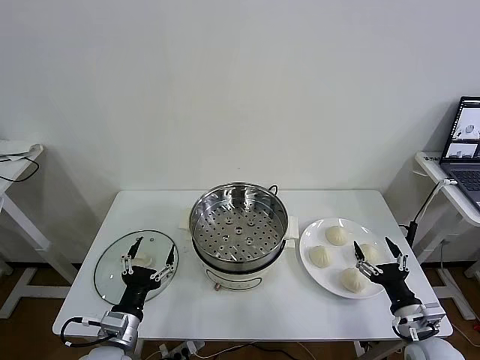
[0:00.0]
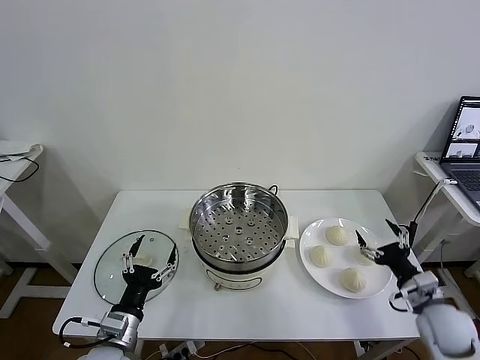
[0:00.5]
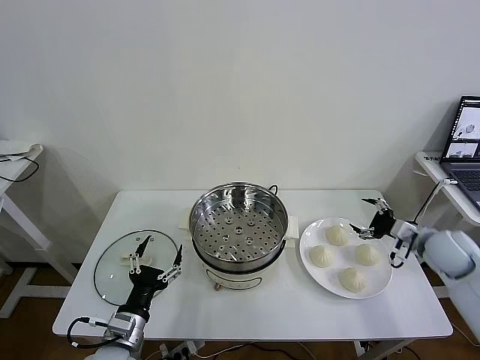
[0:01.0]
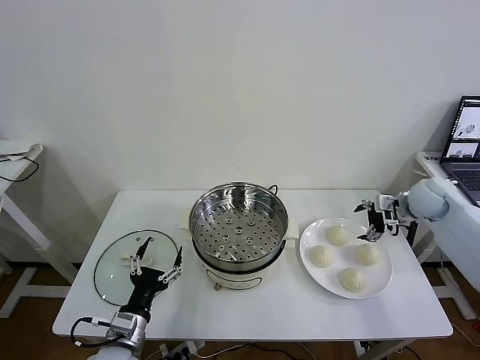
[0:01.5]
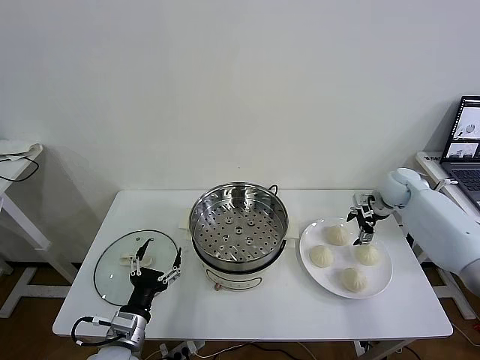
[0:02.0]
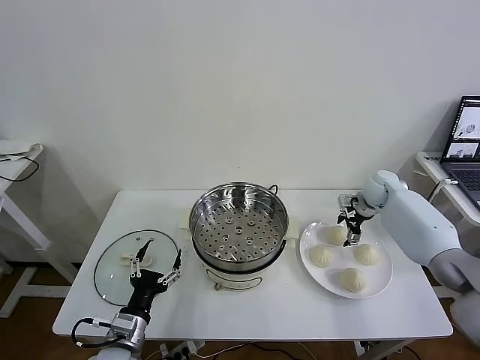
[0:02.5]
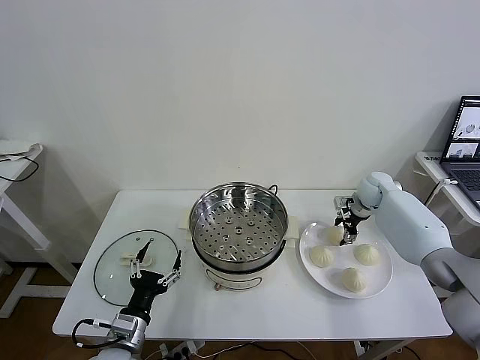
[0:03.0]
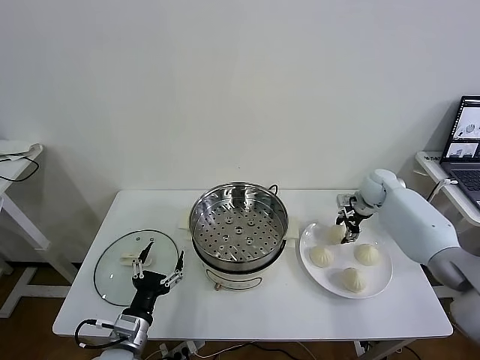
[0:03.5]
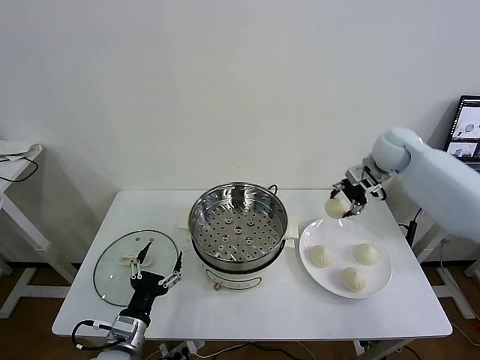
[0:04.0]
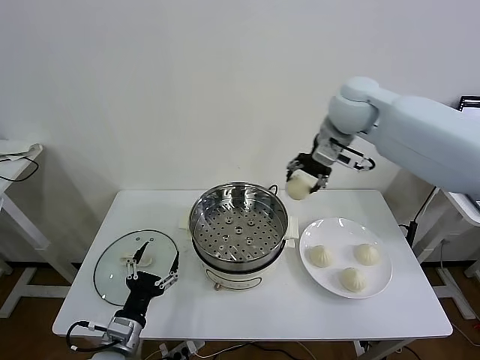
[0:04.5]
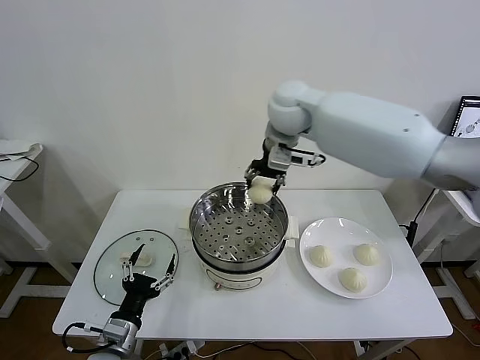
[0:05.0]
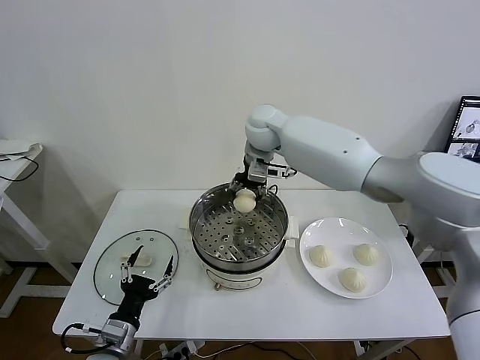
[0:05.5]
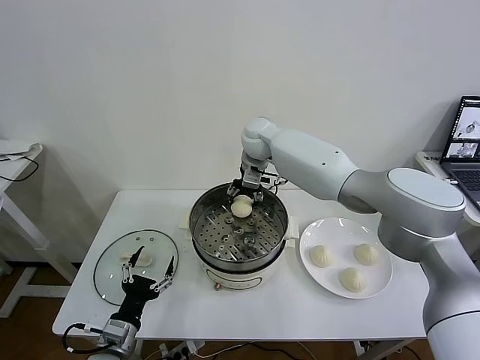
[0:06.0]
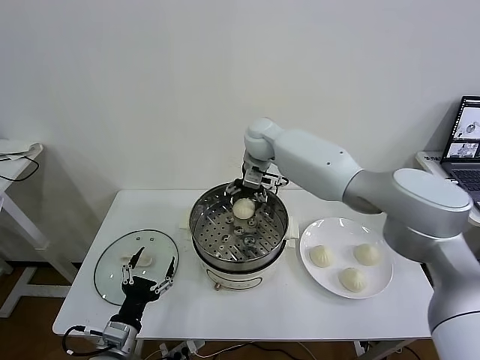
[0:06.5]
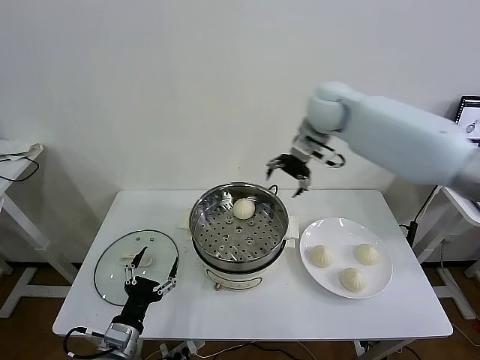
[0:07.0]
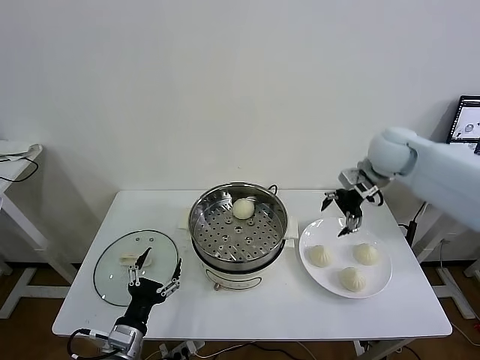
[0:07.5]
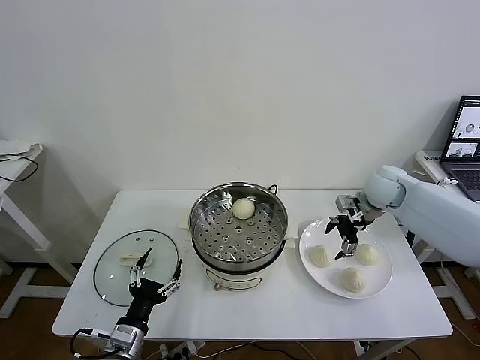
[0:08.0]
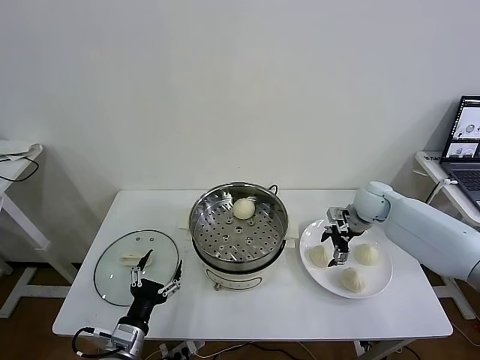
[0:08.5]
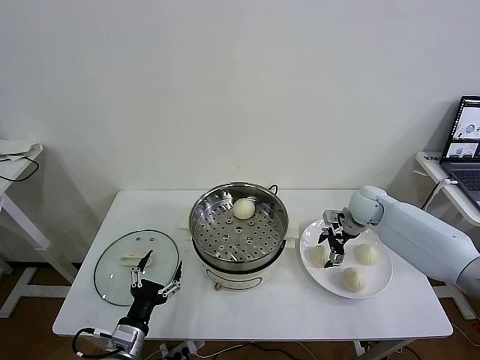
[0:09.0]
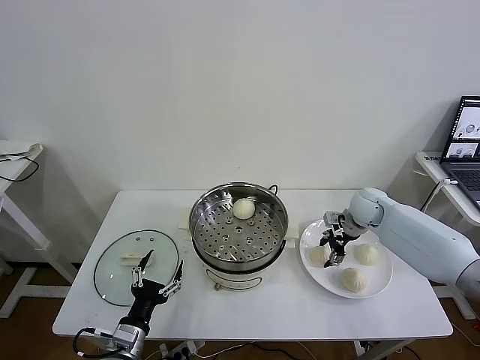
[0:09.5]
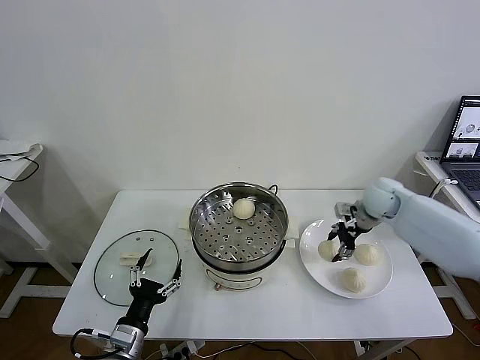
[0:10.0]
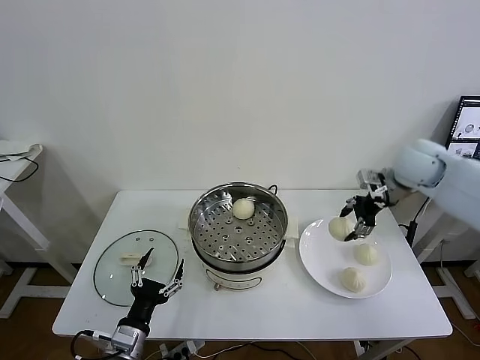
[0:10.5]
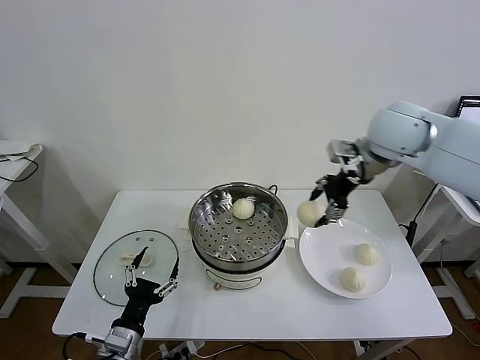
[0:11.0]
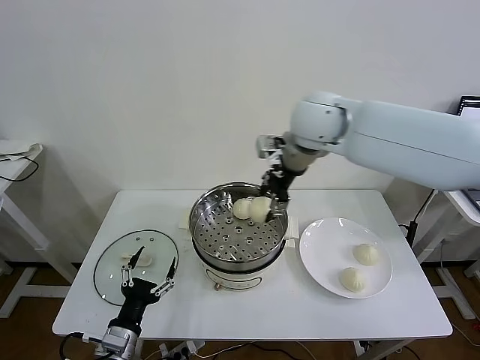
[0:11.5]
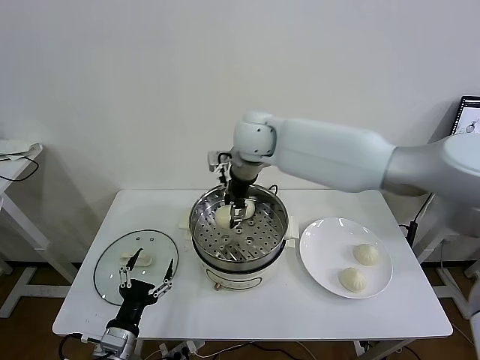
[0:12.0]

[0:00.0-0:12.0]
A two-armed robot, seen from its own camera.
Task of the whole recording: take steamed baozi put them in steamer then cover it.
Step, 0.0 to 3.0 s: Grasp the baozi in the plate with right gripper.
Step, 3.5 to 6.0 s: Place the baozi on the steamer with right gripper.
Step, 6.5 to 9.5 s: Grasp the baozi in the plate with right gripper.
2.0 to 4.0 s: The right gripper travels upward and to the left by approximately 15 cm, and closes its fingers.
4.0 to 6.0 s: The right gripper moves to the left, about 30 cm.
6.0 to 8.0 s: The right gripper travels to the right by about 30 cm, and opens up.
8.0 to 10.0 s: The right gripper closes up.
10.0 to 12.0 s: The right gripper travels to the left and upward by approximately 35 cm.

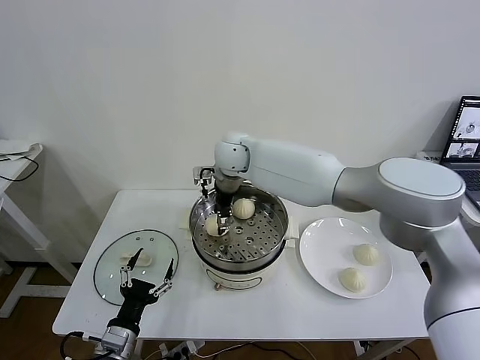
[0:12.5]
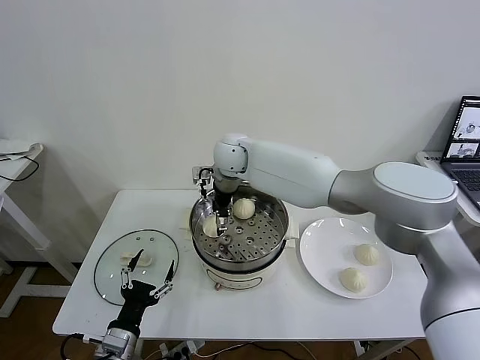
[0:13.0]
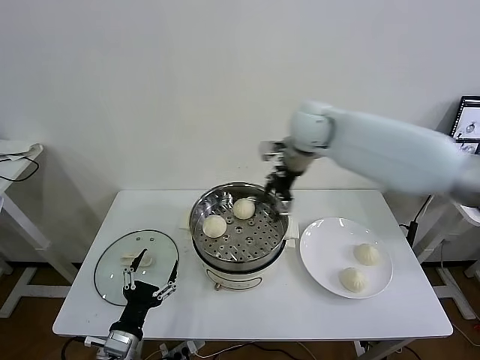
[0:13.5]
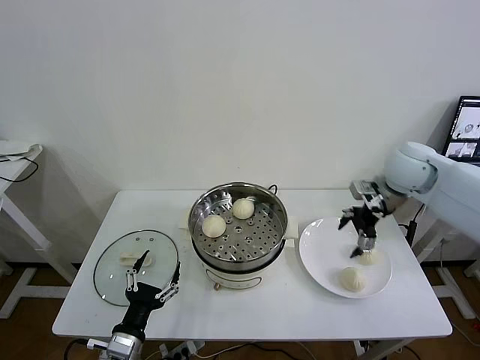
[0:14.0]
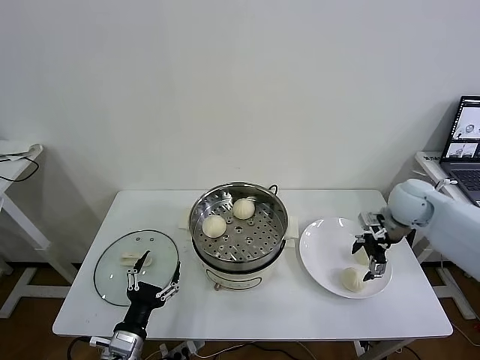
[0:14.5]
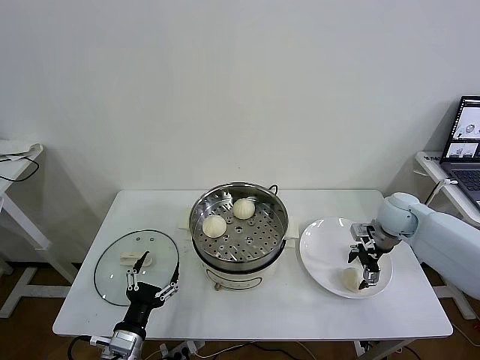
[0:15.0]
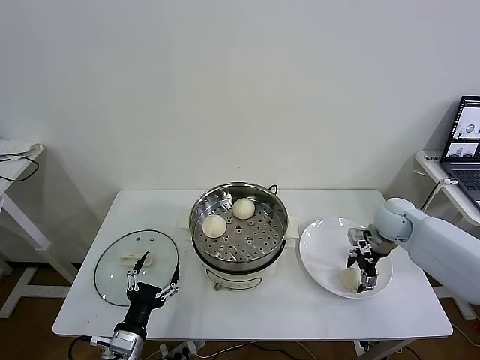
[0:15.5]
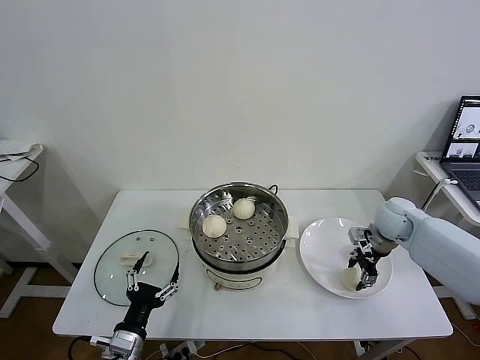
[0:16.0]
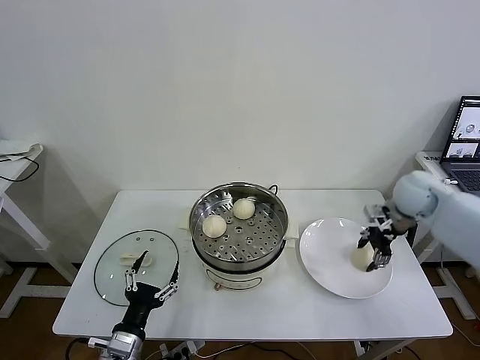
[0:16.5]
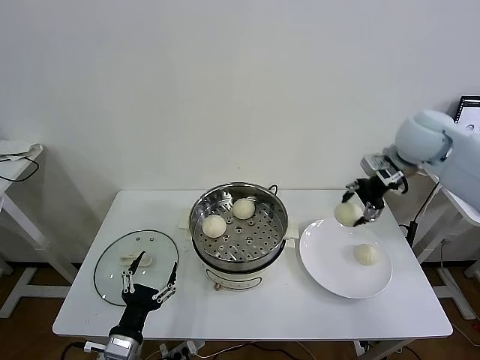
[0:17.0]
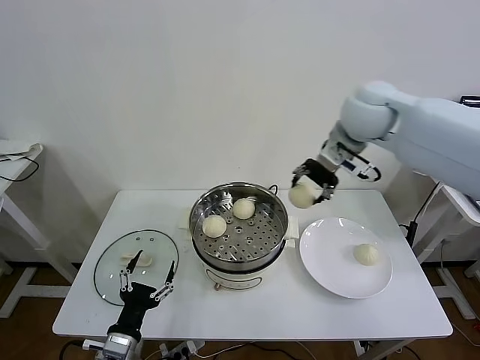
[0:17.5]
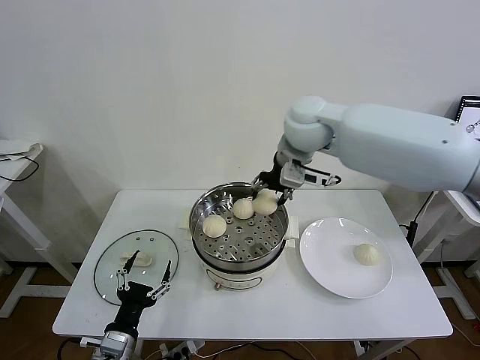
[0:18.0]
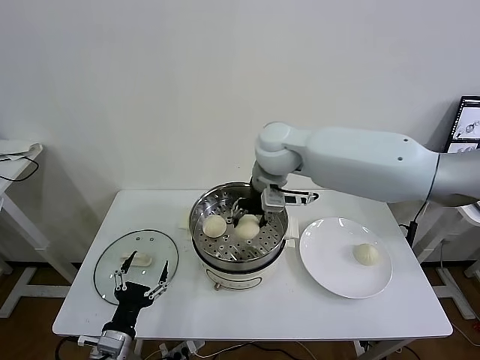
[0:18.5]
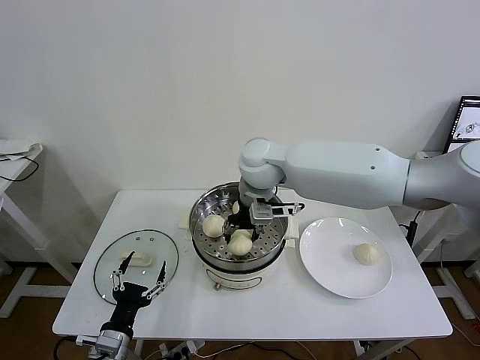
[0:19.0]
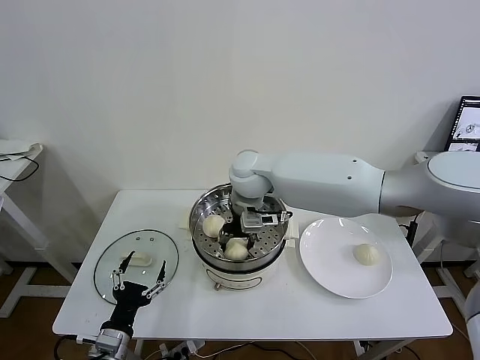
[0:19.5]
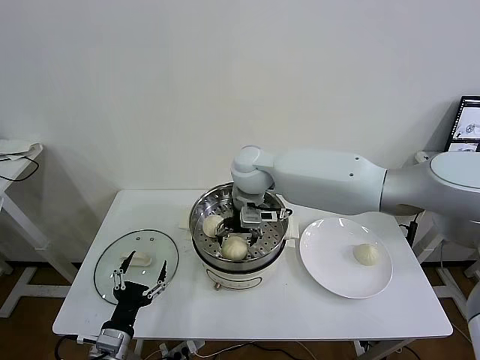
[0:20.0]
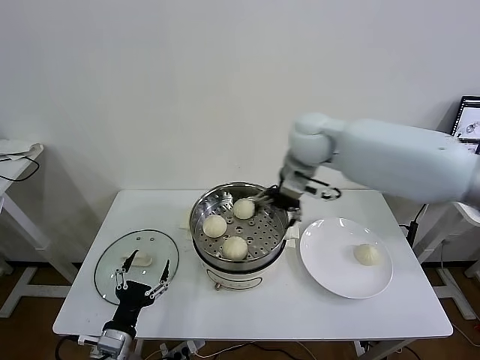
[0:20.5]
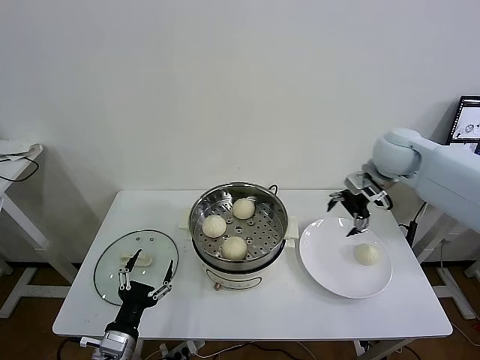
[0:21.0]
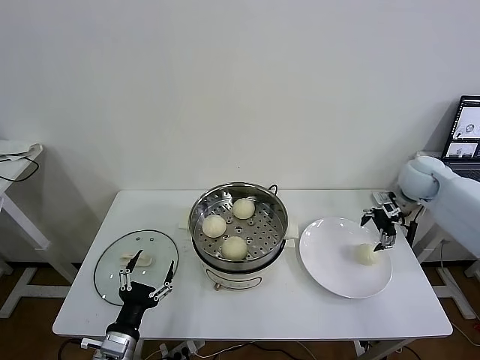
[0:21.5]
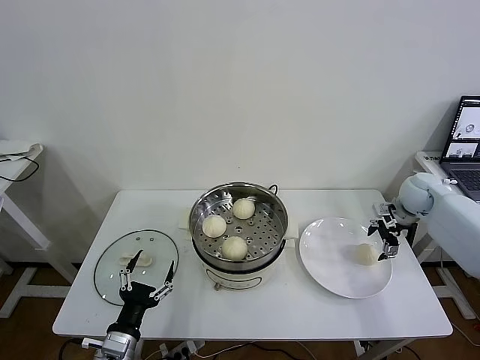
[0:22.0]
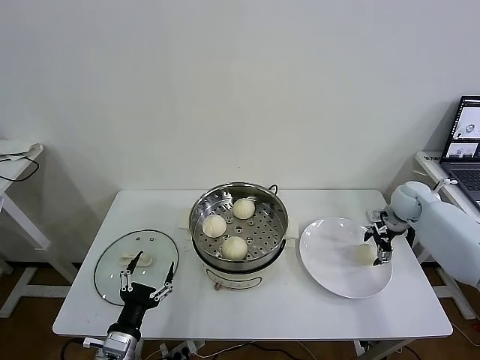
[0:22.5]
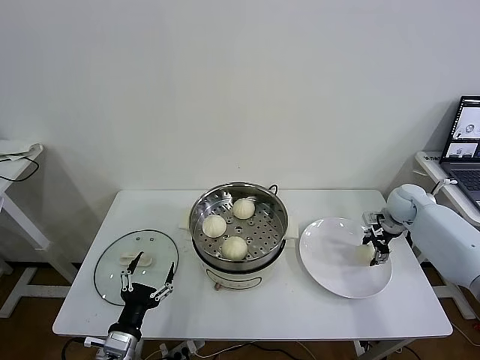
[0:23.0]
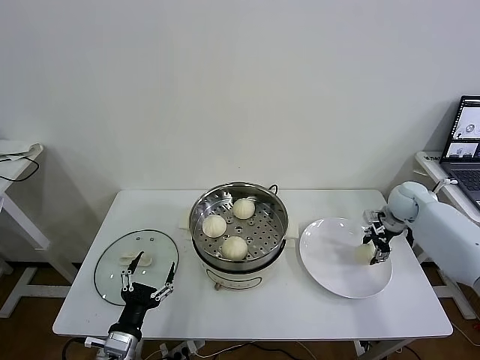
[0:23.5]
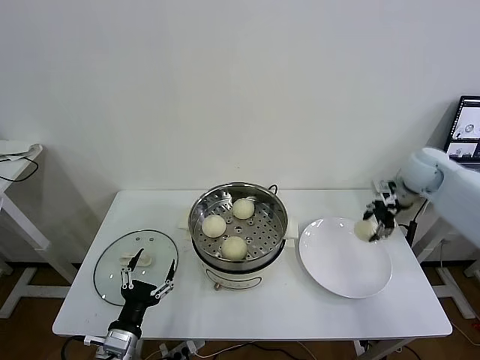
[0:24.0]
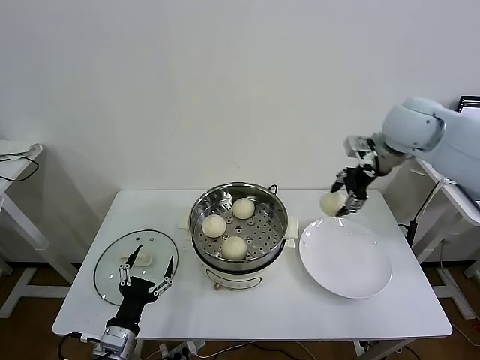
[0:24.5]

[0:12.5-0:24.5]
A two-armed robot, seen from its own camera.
Task of the whole recording: take steamed baozi put them in steamer then cover it.
Step, 13.5 to 16.0 s: Grasp the baozi in the plate with right gripper.
Step, 16.5 to 20.0 s: Place the baozi on the steamer with right gripper.
Step, 20.5 to 23.5 s: Grasp the baozi in the plate with right gripper.
12.5 to 14.5 s: The right gripper heads to the right, covering some 40 cm, and opens up.
14.5 to 16.5 s: The right gripper moves roughly 5 cm downward and comes back, and closes its fingers.
16.5 to 18.5 s: The right gripper shifts about 30 cm to the left.
18.5 to 20.5 s: The right gripper shifts some 5 cm to the right, and opens.
20.5 to 22.5 s: The right gripper shifts about 35 cm to the right and downward.
22.5 to 24.5 s: The right gripper goes approximately 25 cm upward and to the left, and closes.

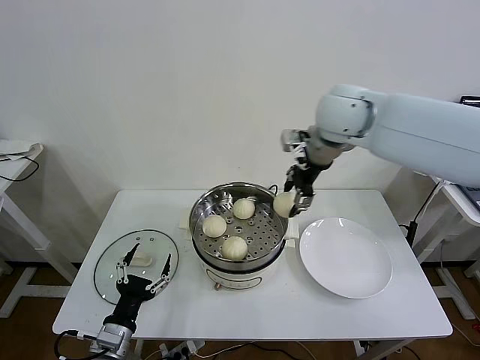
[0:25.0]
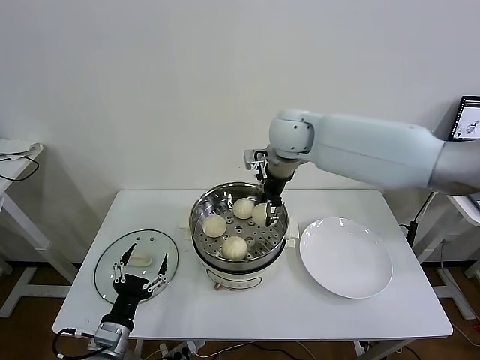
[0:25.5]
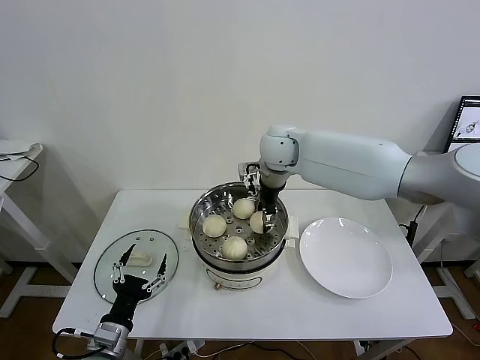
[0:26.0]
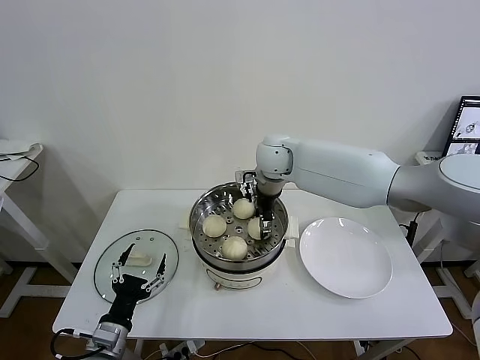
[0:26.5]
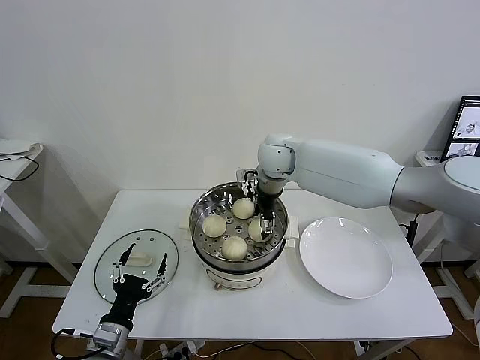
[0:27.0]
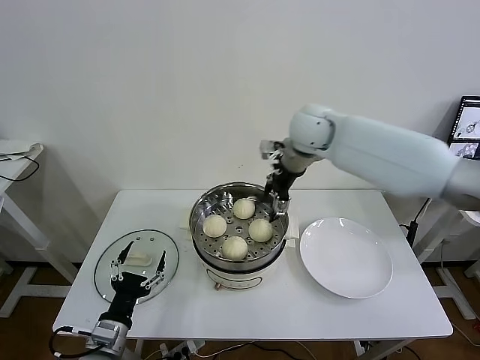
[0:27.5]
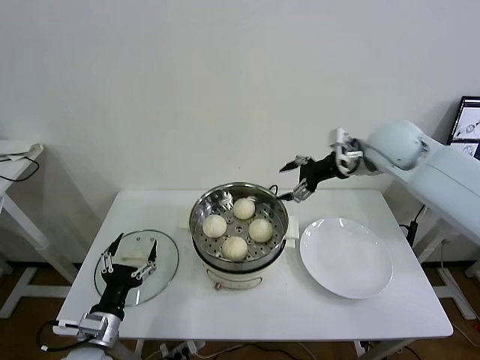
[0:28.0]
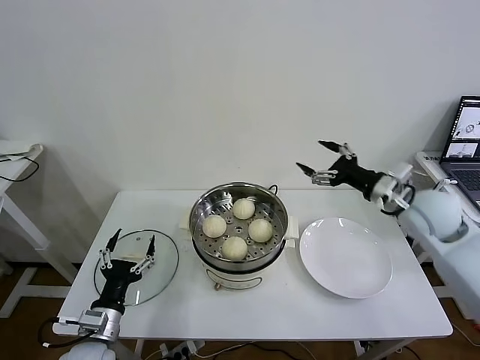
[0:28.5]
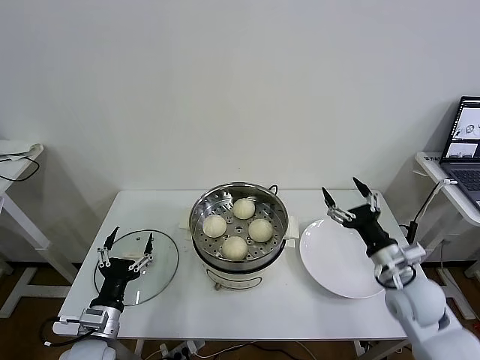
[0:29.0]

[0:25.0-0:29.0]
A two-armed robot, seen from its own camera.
Task of the whole recording: take steamed baozi put them in steamer then cover it.
Step, 25.0 to 27.0 s: Place the baozi on the steamer with right gripper.
25.0 to 27.0 s: The right gripper goes roughly 15 cm downward and to the left, and opens.
27.0 to 29.0 s: The right gripper goes some 40 cm to the right, backward and downward.
